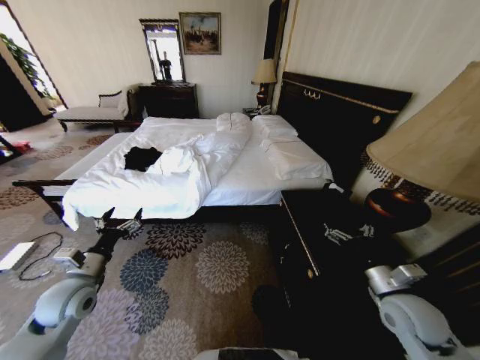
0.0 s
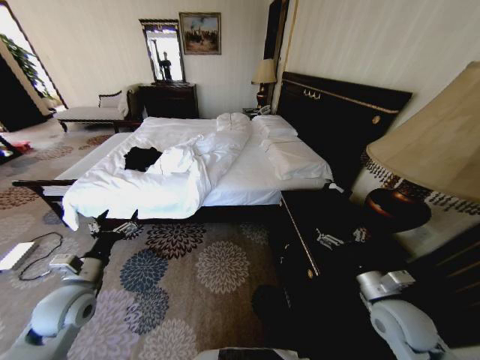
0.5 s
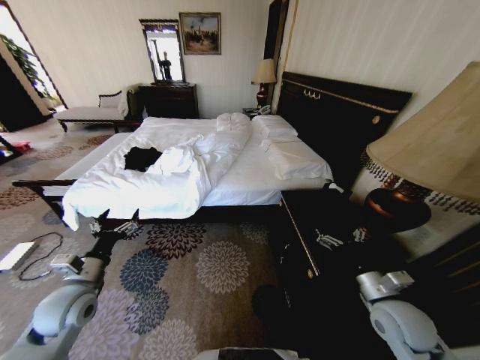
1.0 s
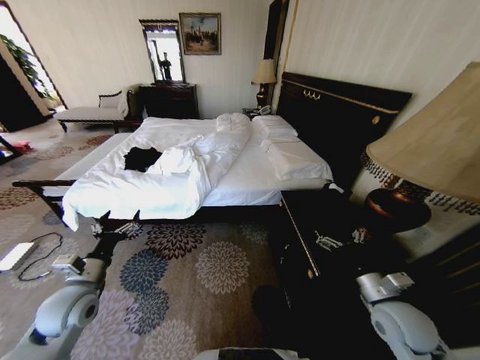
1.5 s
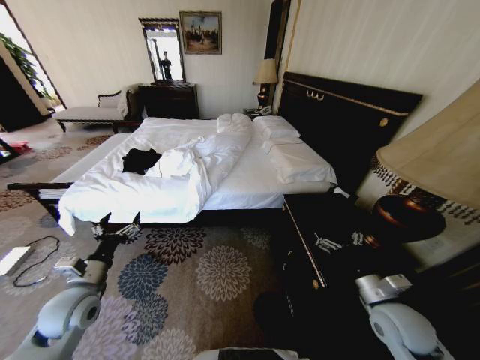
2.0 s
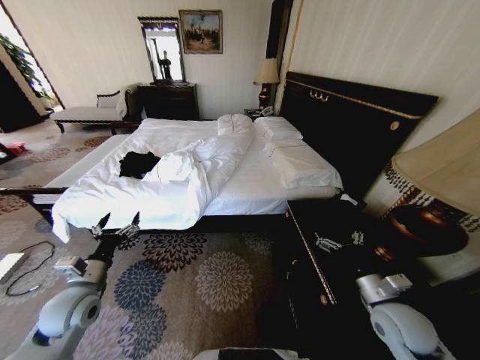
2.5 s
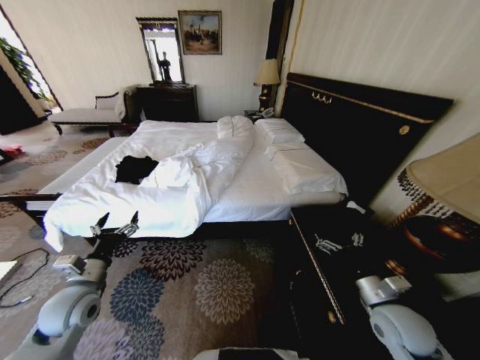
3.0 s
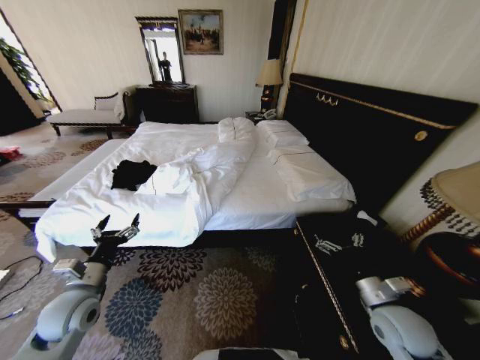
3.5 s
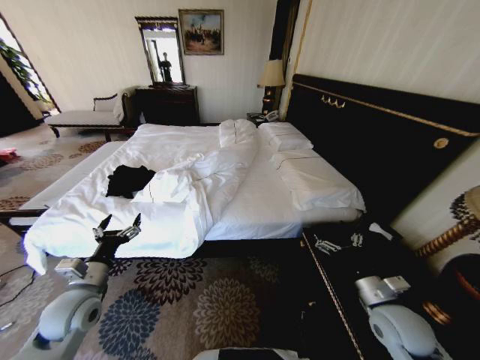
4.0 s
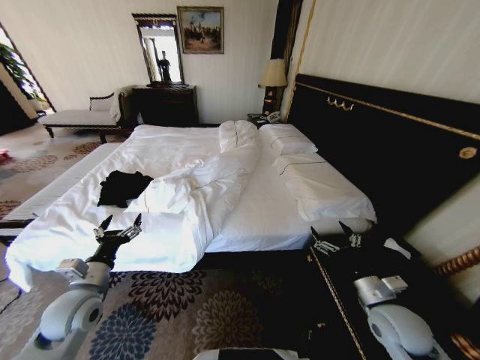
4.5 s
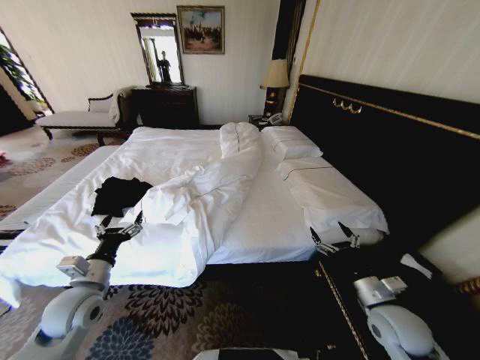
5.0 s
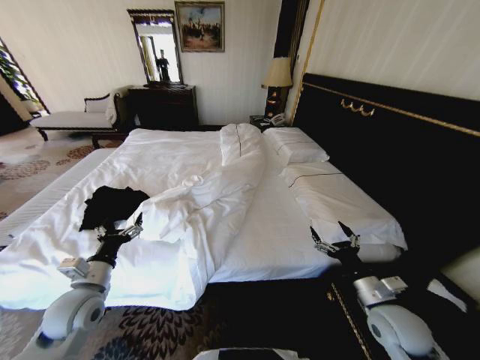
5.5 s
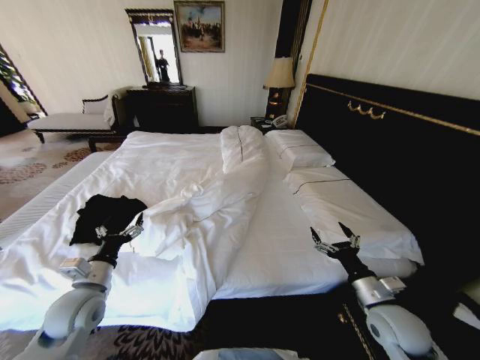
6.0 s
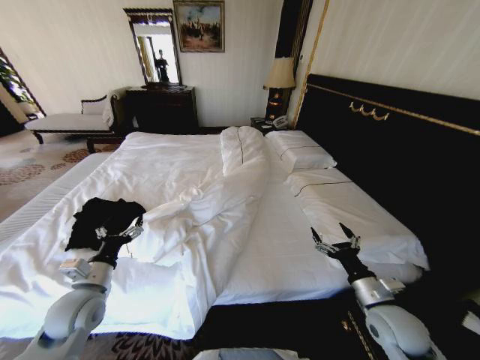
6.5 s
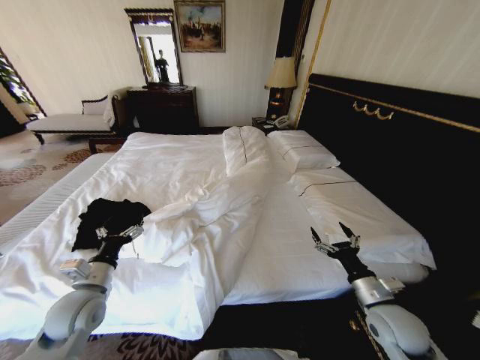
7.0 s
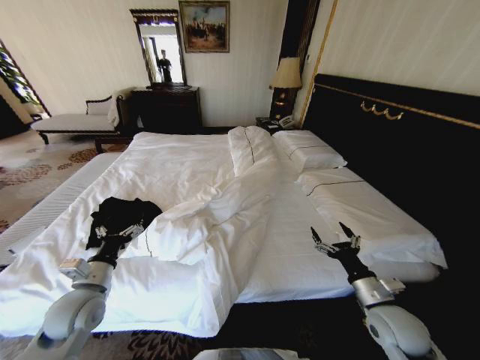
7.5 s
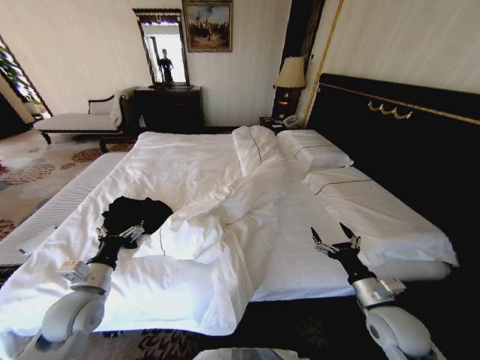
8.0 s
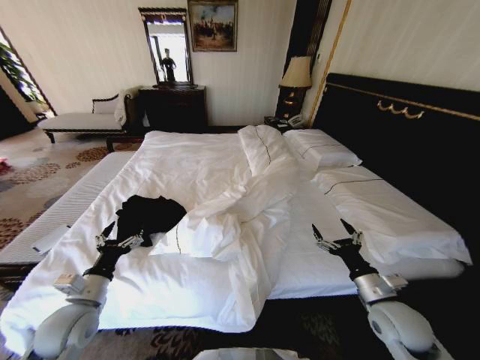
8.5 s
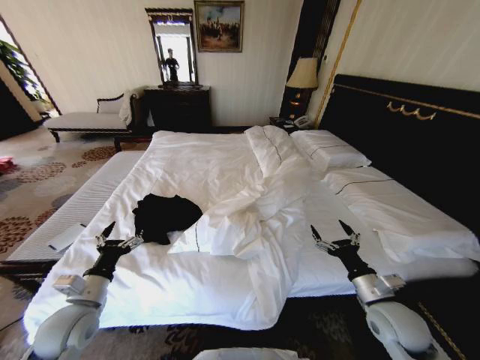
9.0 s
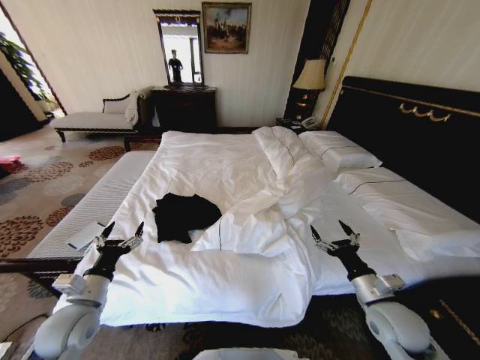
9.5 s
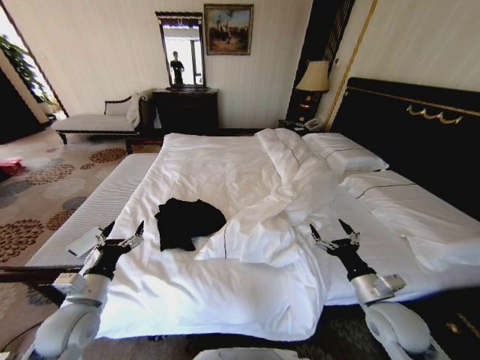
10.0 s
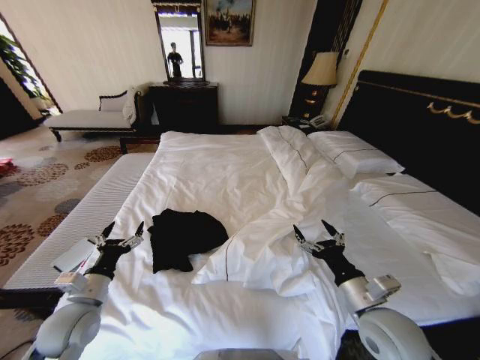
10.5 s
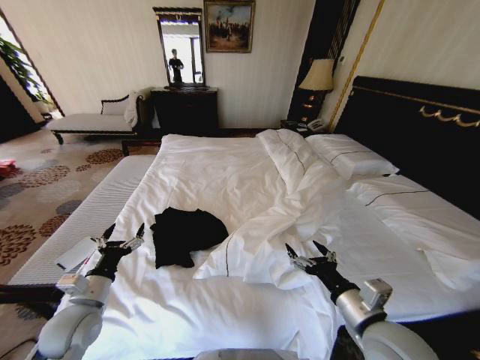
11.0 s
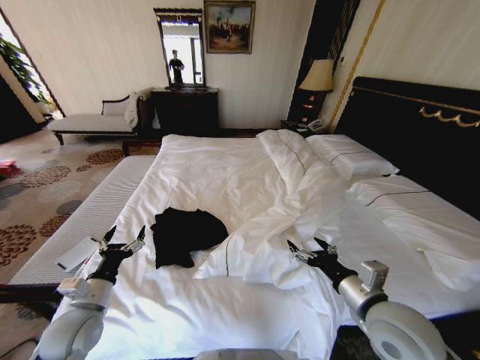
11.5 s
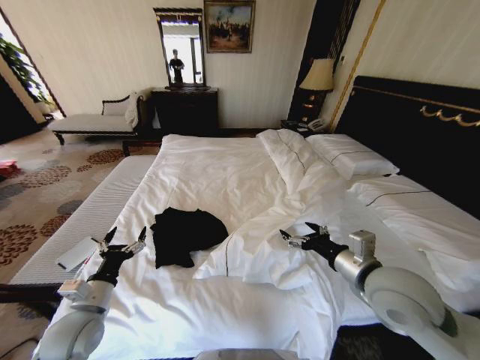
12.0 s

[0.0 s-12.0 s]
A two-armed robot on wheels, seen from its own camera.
Task of the whole recording: Fold the clothes on the bed.
10.0 to 12.0 s: The right gripper moves upward and to the left, roughly 15 cm.

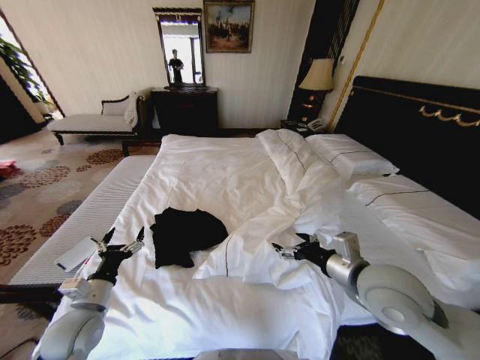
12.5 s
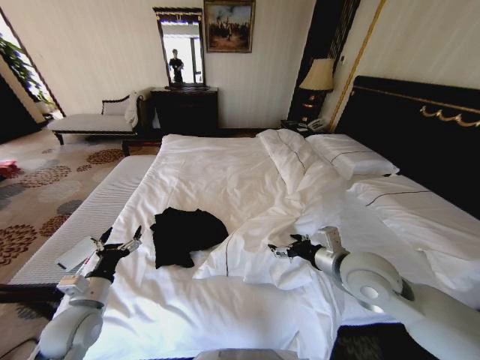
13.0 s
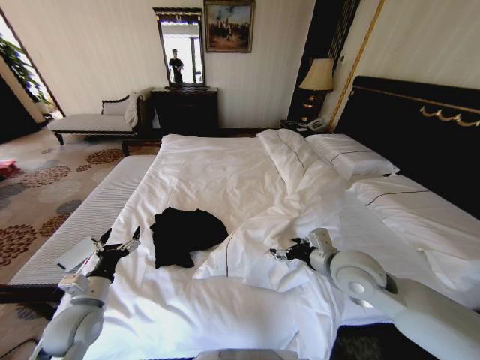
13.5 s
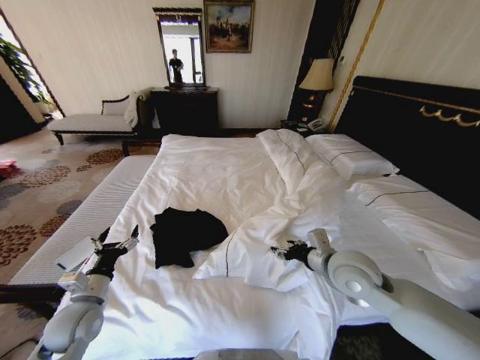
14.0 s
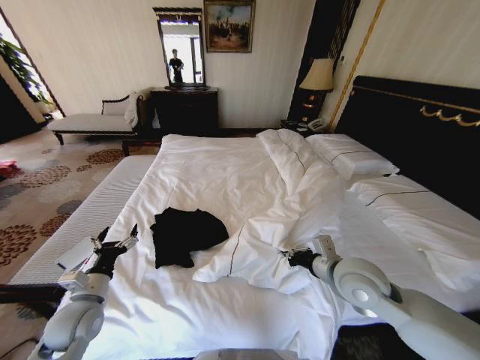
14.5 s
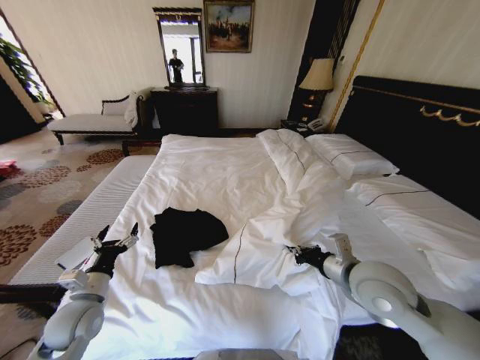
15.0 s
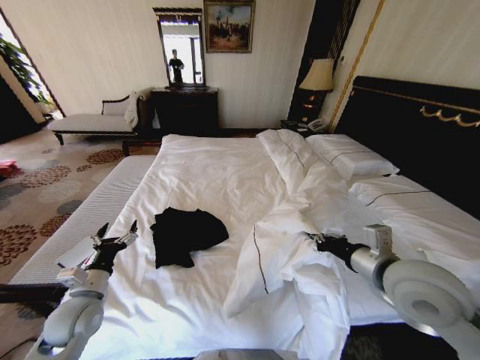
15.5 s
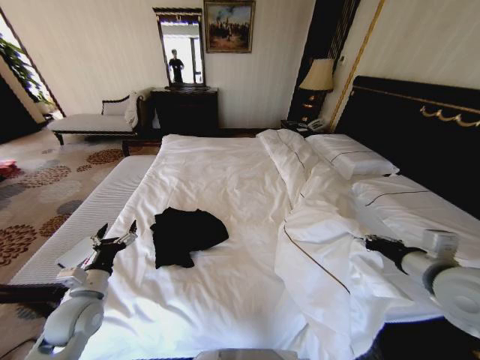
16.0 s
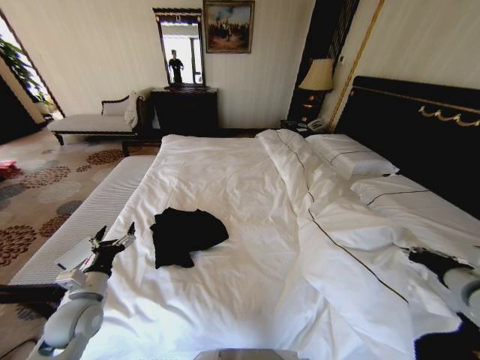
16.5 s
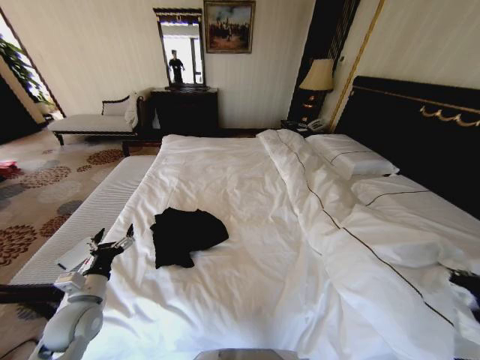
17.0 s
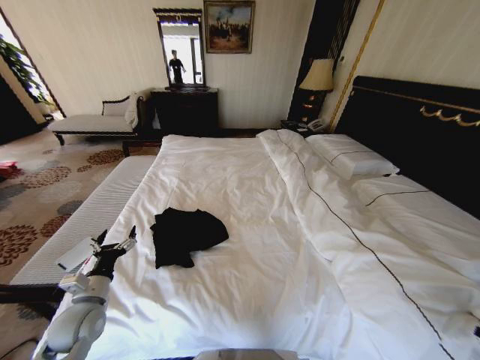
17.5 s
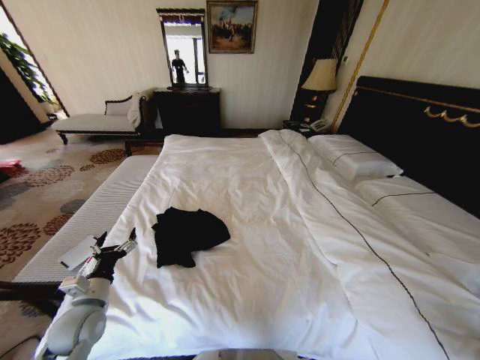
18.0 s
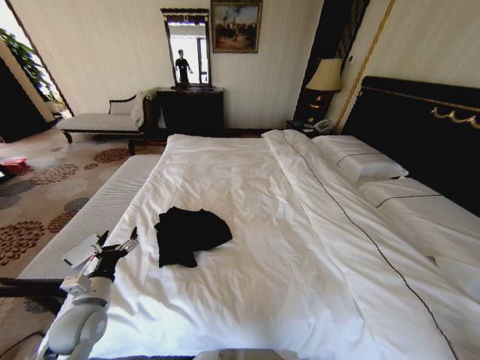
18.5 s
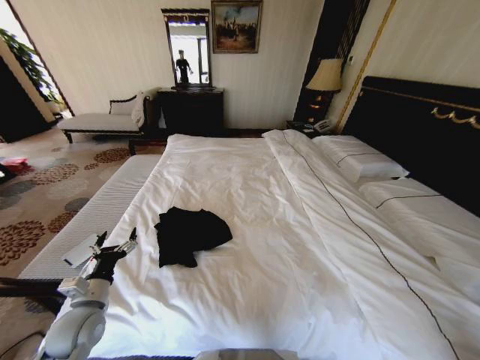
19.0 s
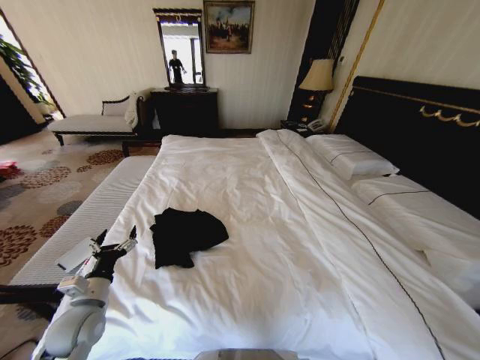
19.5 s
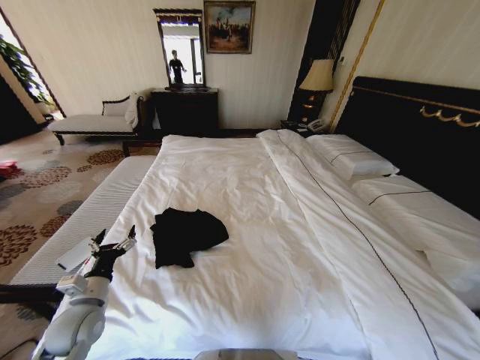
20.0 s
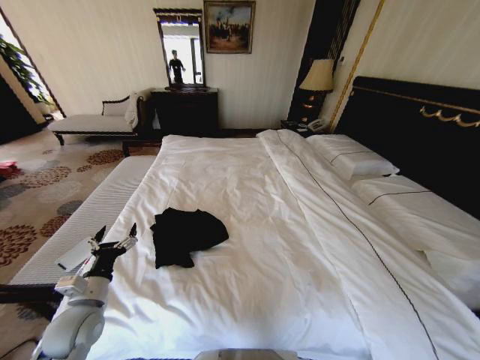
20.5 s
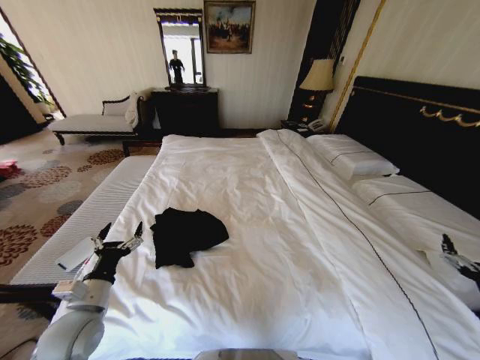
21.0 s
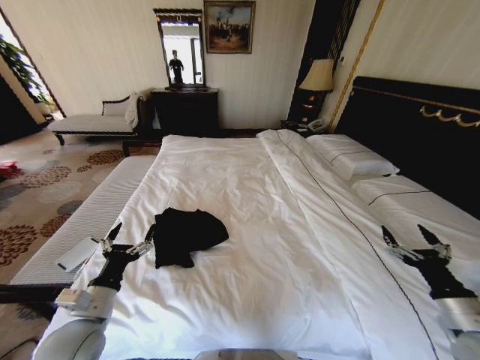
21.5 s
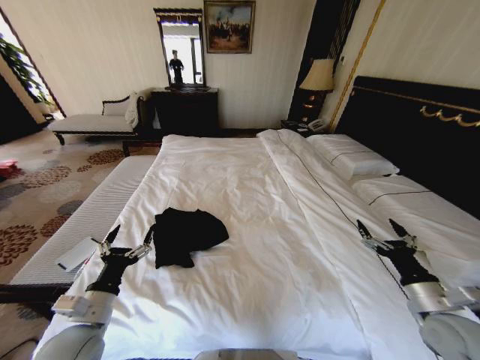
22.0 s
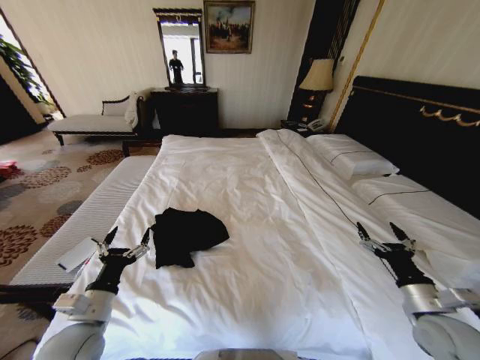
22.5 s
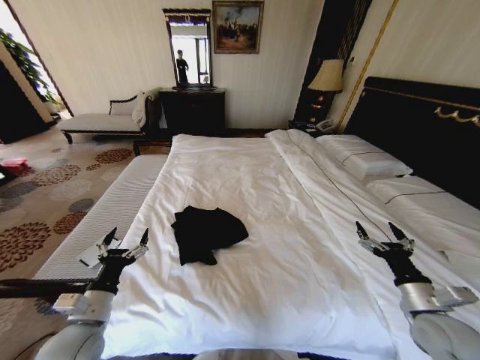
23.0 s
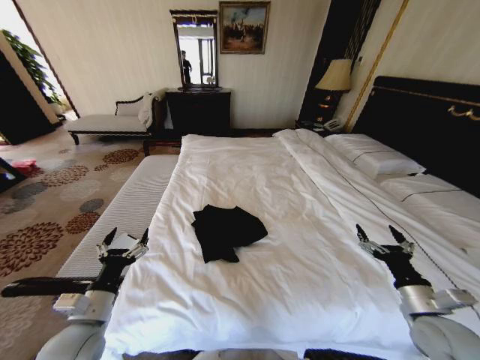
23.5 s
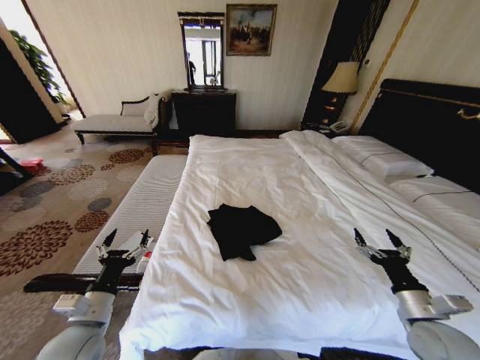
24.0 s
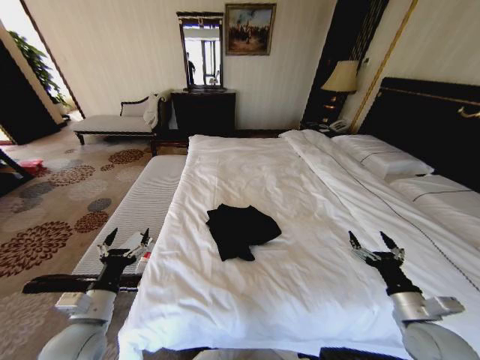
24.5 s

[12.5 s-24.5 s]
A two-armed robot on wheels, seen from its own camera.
Task of the whole recording: Fold the clothes on the bed.
12.5 to 14.5 s: The right gripper shifts by some 5 cm, and closes up.
14.5 to 16.5 s: The right gripper travels to the right by about 20 cm.
16.5 to 18.5 s: The right gripper moves downward, backward and to the right, some 30 cm.
18.5 to 20.5 s: The right gripper moves upward, about 10 cm, and opens up.
20.5 to 22.5 s: The right gripper shifts roughly 15 cm forward and to the left. The left gripper ends up approximately 5 cm from where it was.

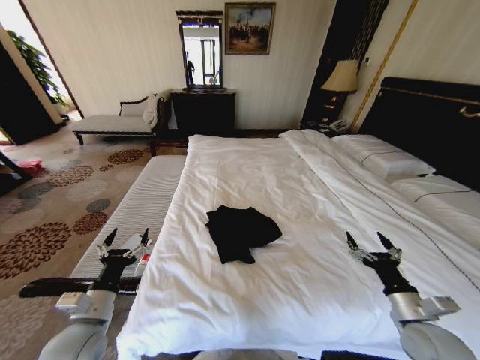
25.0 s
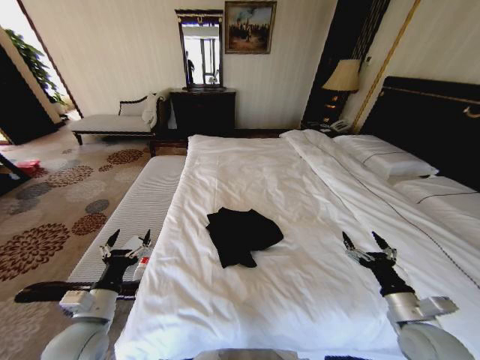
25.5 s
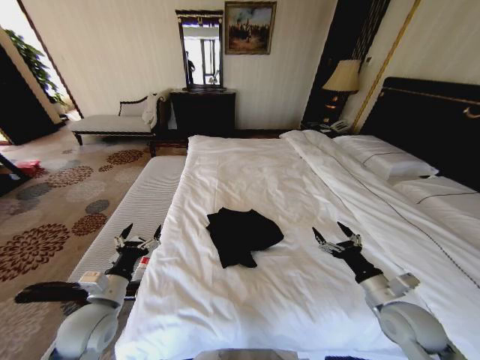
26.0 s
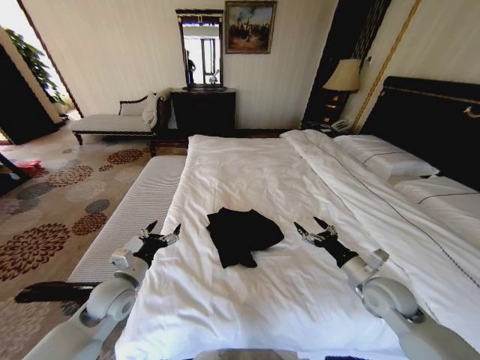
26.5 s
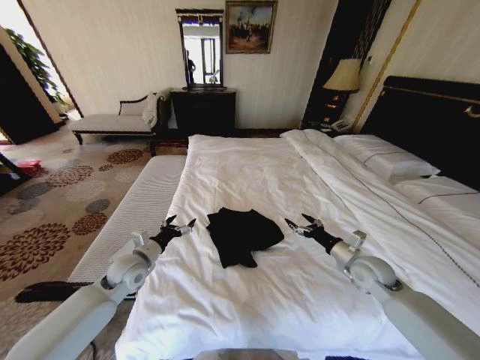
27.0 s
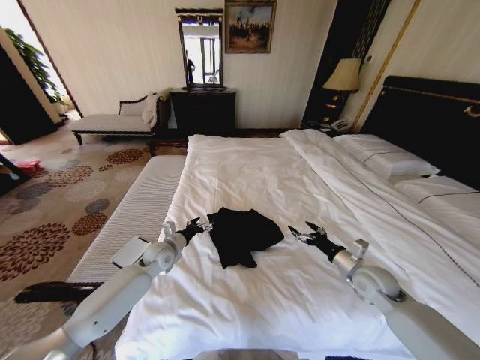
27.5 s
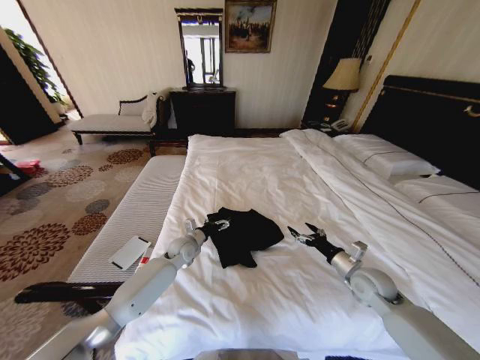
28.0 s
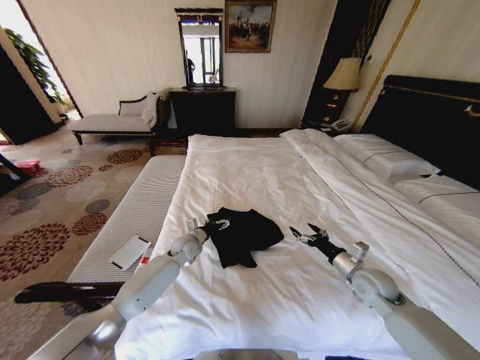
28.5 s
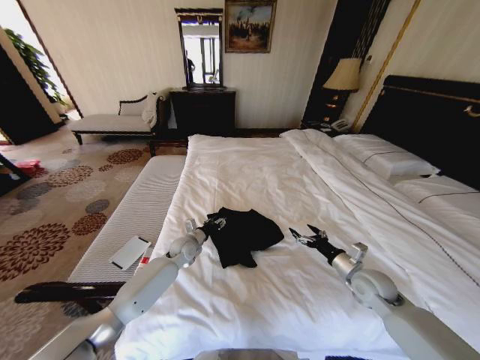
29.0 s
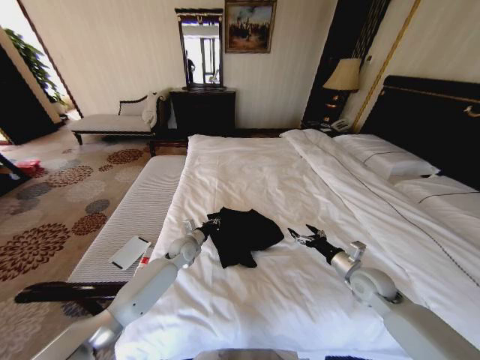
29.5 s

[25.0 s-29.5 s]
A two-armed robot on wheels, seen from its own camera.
Task of the whole recording: Fold the clothes on the bed.
25.0 to 27.0 s: The two grippers go about 15 cm forward.
27.0 to 29.5 s: The left gripper goes roughly 20 cm to the right, forward and downward, and closes its fingers.
